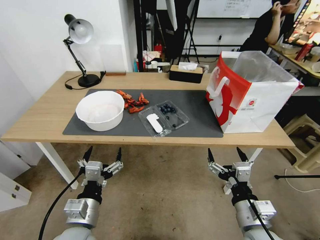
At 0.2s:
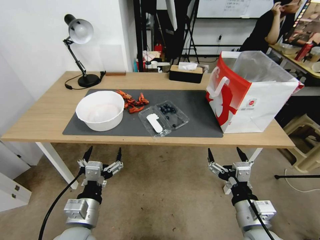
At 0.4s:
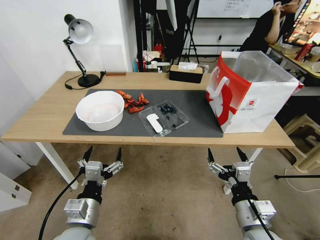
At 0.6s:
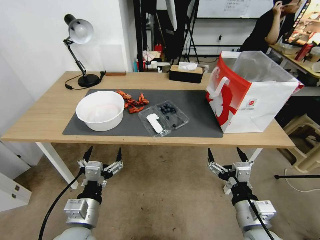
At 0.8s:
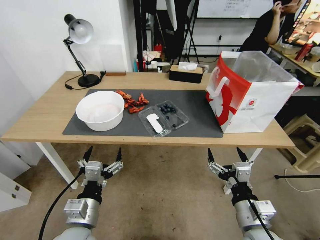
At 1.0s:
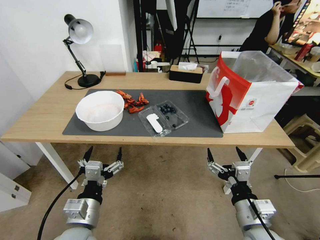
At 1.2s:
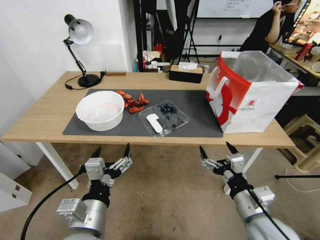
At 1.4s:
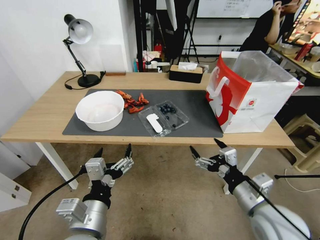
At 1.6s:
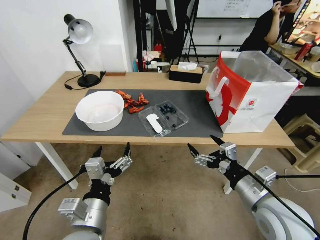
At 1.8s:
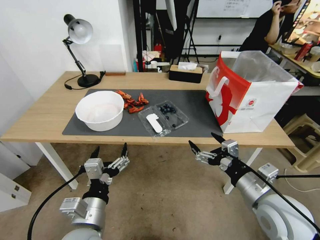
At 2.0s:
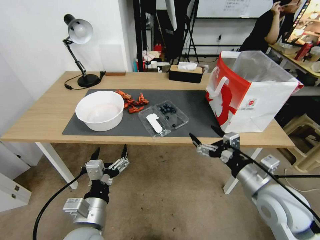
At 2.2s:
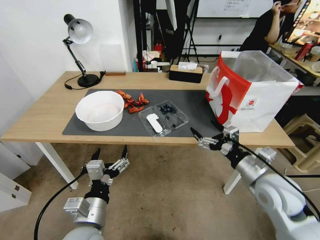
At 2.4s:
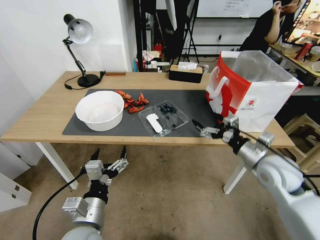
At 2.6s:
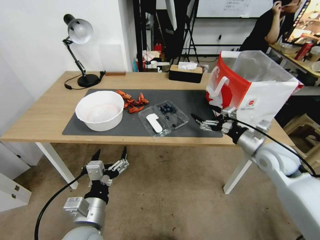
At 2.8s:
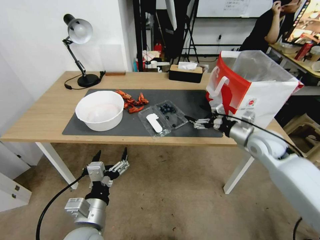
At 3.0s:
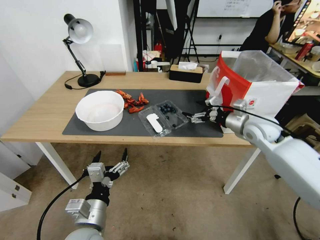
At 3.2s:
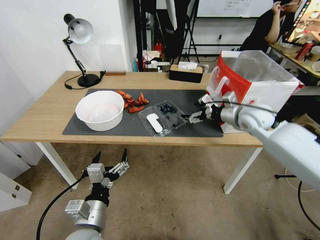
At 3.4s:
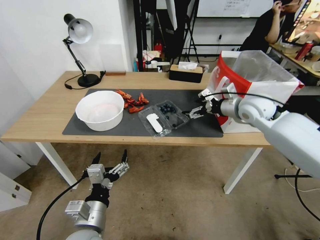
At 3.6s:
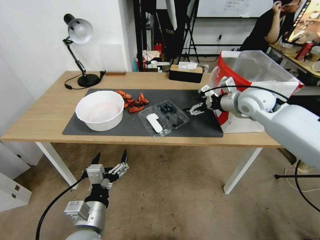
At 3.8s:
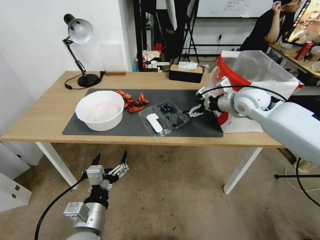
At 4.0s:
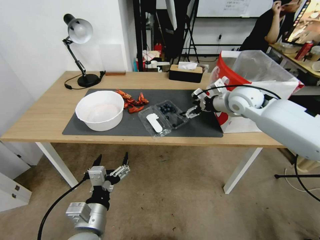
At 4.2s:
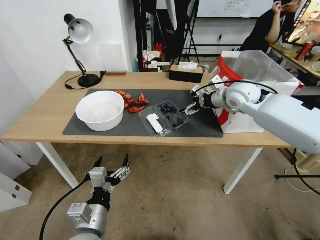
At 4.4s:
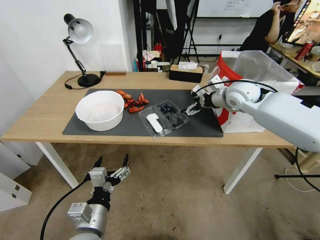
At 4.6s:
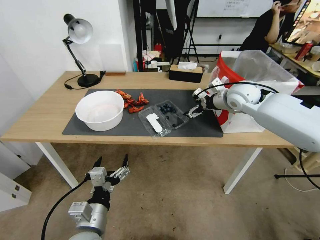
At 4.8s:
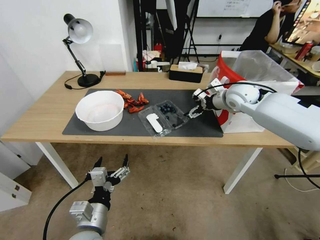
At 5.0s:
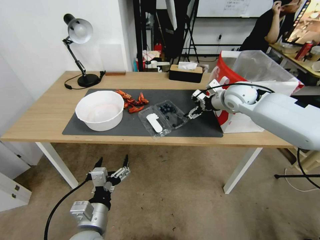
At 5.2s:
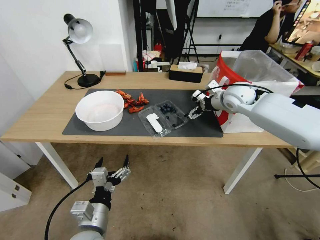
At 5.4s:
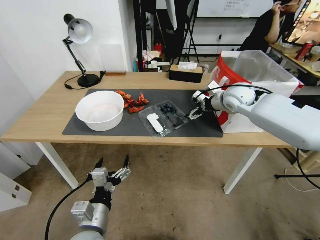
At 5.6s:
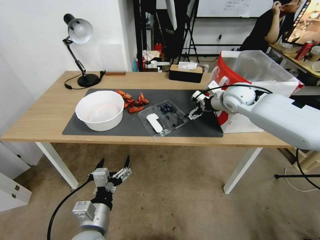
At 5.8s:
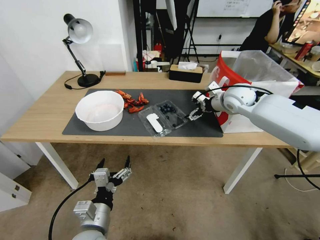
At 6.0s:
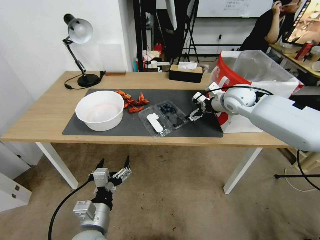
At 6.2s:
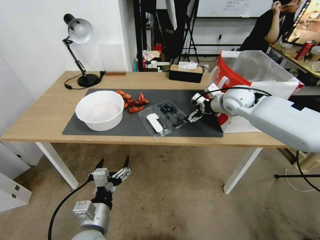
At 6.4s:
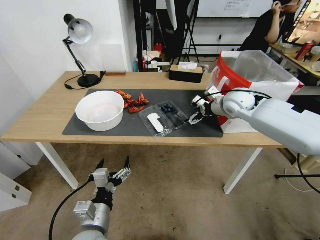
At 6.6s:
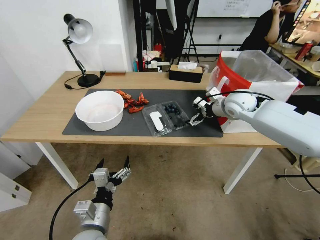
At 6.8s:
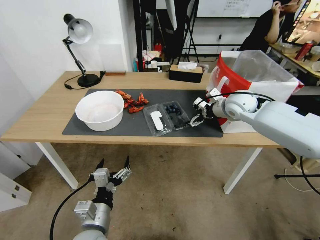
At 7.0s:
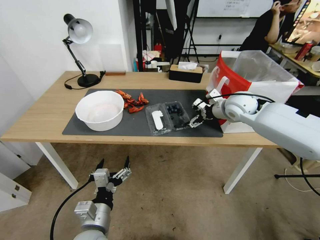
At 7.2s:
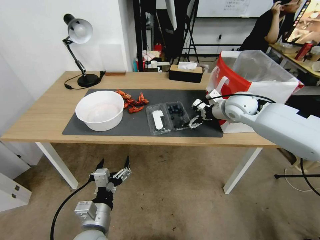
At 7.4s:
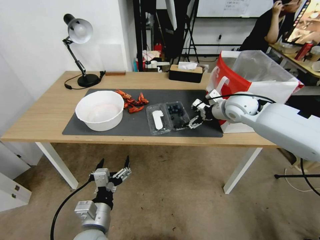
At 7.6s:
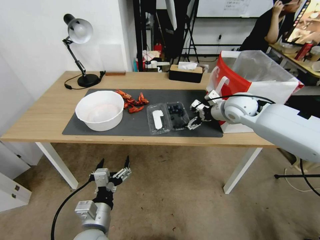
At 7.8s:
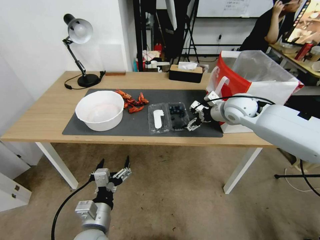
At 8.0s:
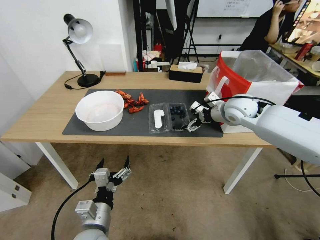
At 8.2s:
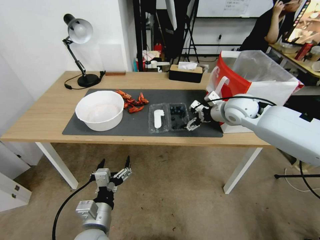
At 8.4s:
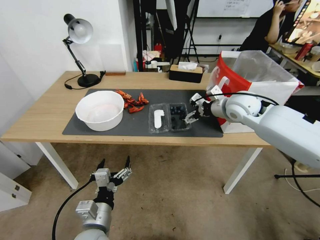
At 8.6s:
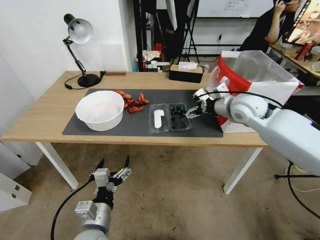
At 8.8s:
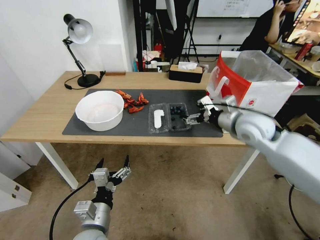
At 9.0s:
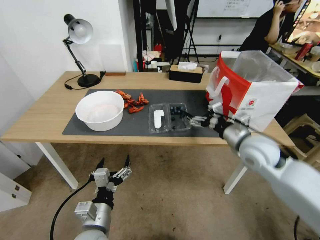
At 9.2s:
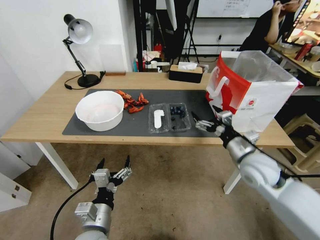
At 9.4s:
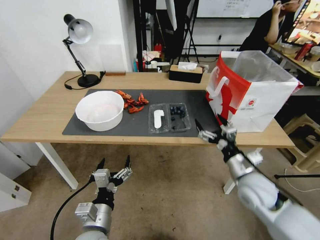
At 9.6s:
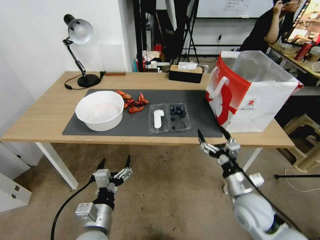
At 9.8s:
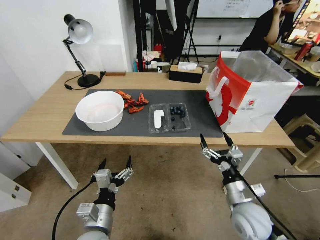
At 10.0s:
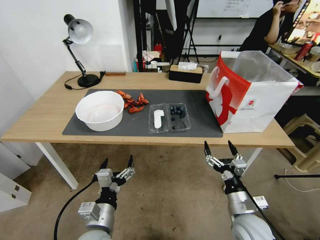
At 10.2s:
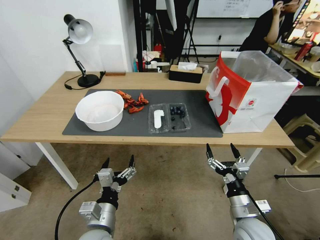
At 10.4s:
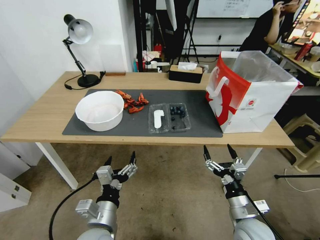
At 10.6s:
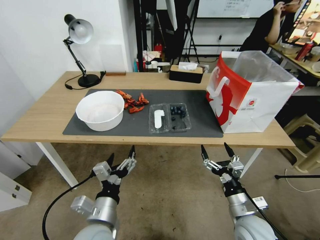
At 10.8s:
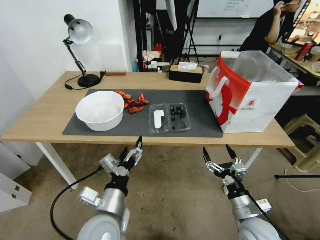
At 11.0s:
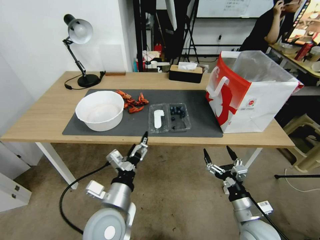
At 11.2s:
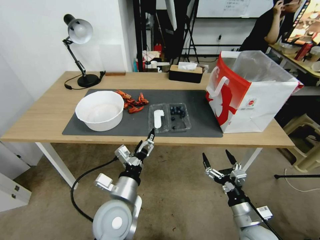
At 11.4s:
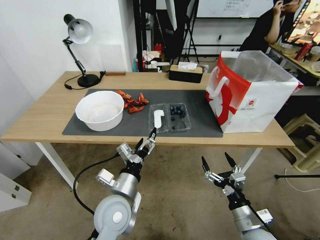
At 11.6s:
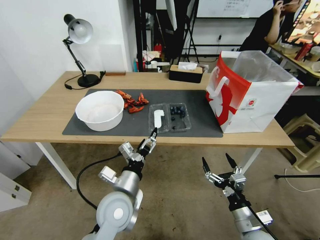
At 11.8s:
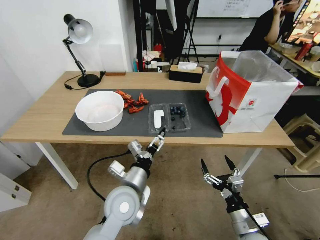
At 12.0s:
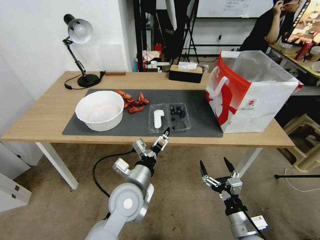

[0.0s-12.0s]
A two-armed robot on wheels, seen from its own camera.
Task of the whole recording: Close the takeout container lid, then place the container into the takeout bag.
1.6s to 3.0s: The left gripper travels downward by roughly 5 cm; the right gripper is displaced forward by approximately 25 cm.
3.0s to 4.4s: The right gripper heads forward, upward and to the left, covering approximately 15 cm.
4.4s to 7.6s: The grippers stay close to where they were, moving slightly.
7.6s to 9.0s: The right gripper is displaced backward by roughly 15 cm.
9.0s to 10.4s: The right gripper moves backward and downward, about 25 cm.
10.4s to 12.0s: The left gripper is displaced forward and to the right by roughly 15 cm.

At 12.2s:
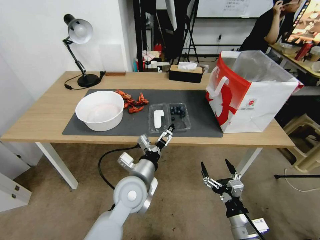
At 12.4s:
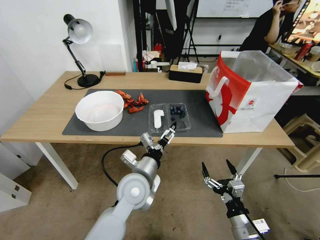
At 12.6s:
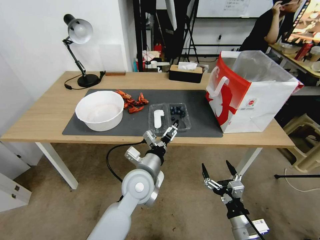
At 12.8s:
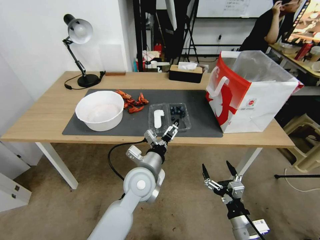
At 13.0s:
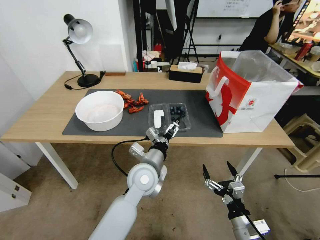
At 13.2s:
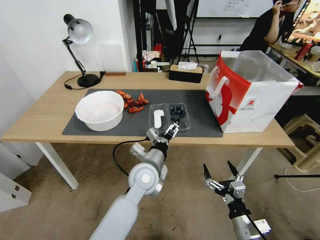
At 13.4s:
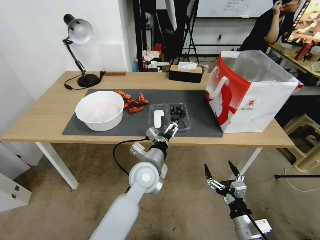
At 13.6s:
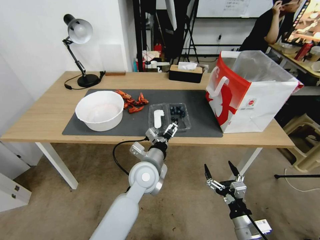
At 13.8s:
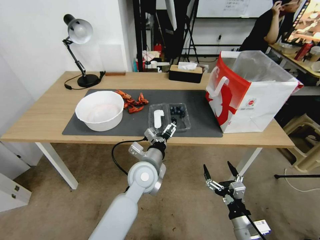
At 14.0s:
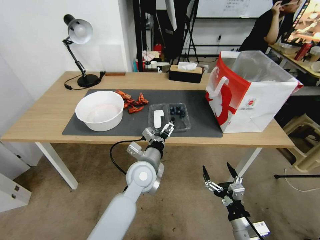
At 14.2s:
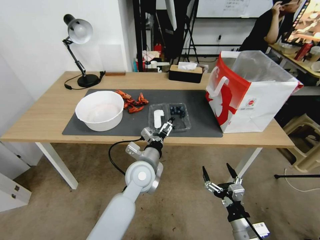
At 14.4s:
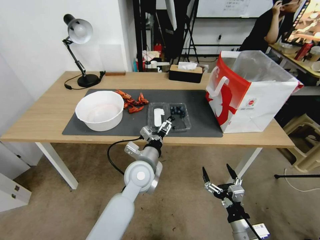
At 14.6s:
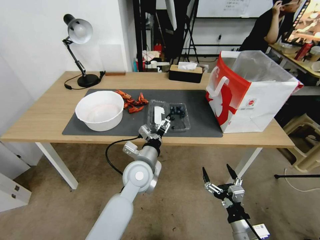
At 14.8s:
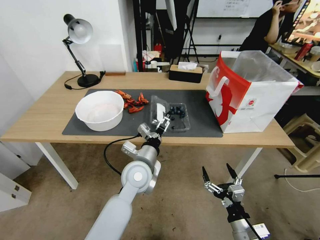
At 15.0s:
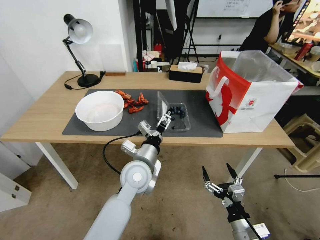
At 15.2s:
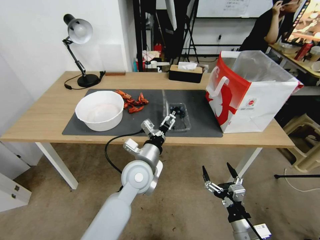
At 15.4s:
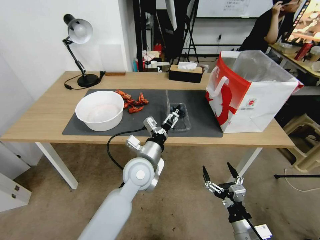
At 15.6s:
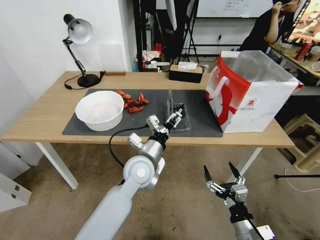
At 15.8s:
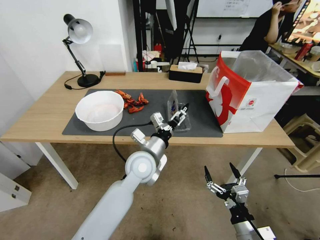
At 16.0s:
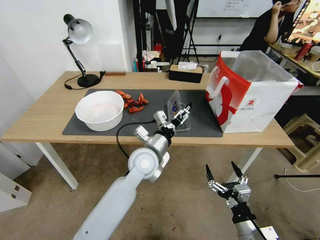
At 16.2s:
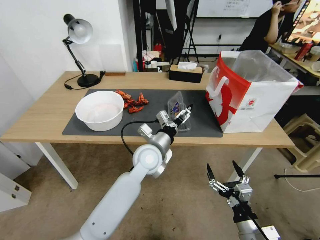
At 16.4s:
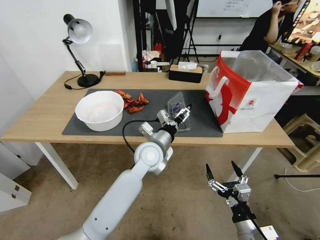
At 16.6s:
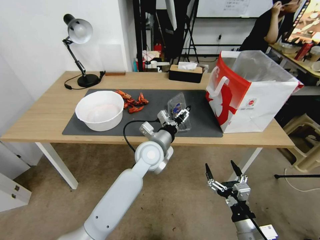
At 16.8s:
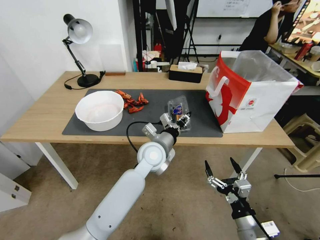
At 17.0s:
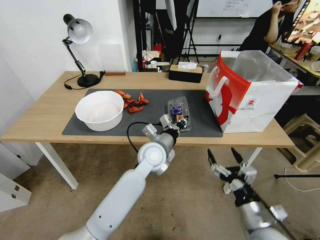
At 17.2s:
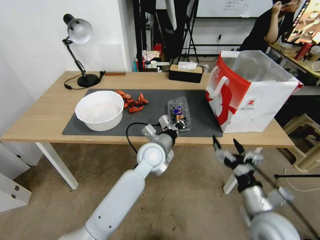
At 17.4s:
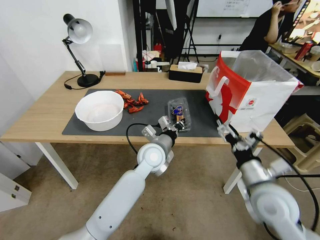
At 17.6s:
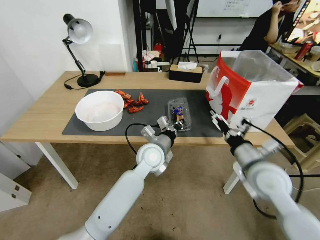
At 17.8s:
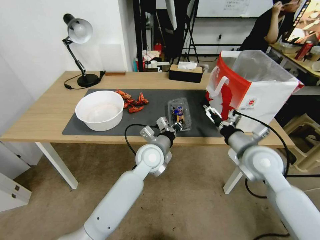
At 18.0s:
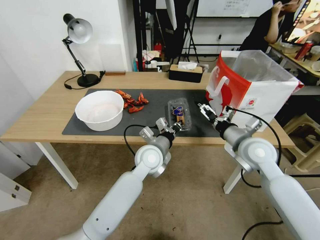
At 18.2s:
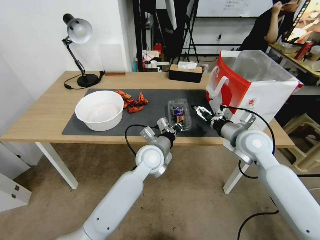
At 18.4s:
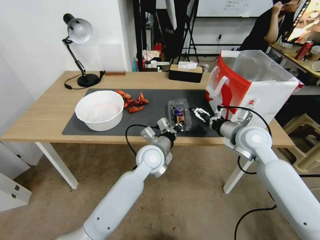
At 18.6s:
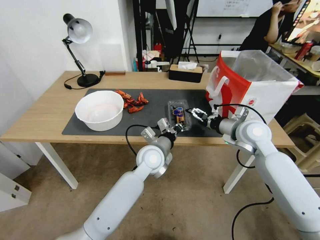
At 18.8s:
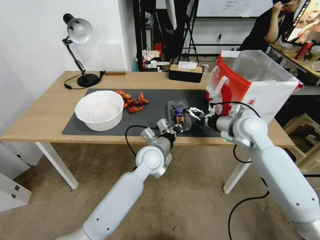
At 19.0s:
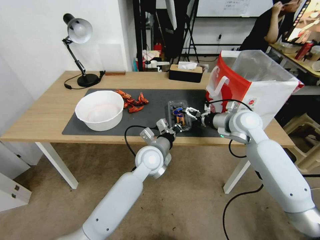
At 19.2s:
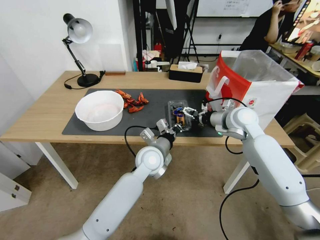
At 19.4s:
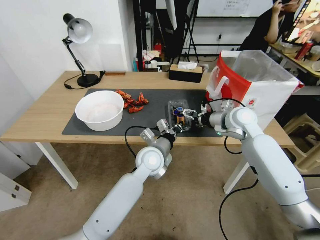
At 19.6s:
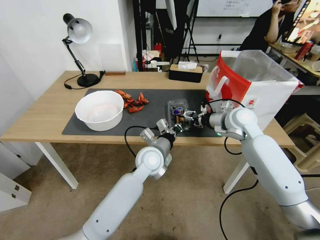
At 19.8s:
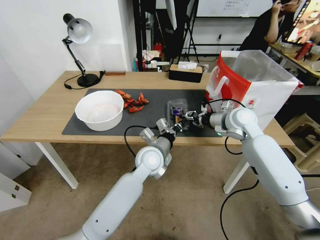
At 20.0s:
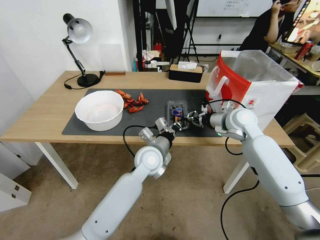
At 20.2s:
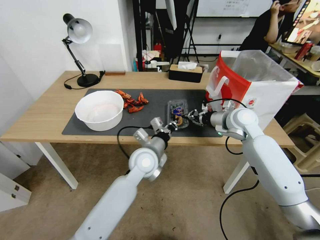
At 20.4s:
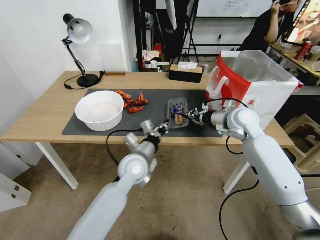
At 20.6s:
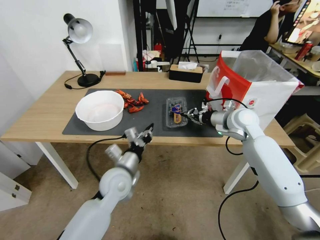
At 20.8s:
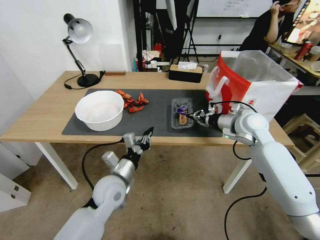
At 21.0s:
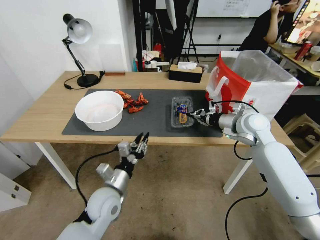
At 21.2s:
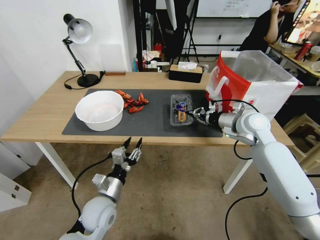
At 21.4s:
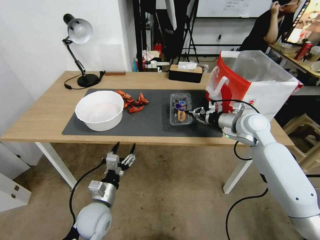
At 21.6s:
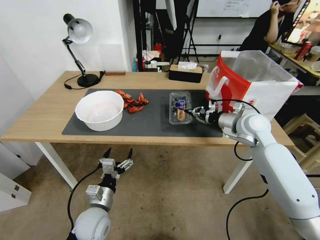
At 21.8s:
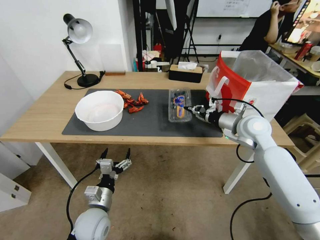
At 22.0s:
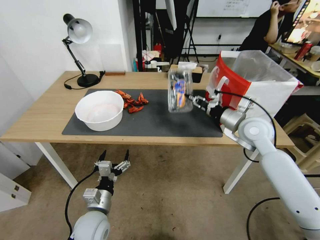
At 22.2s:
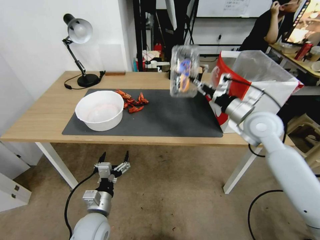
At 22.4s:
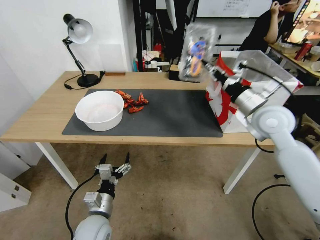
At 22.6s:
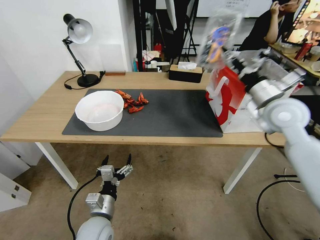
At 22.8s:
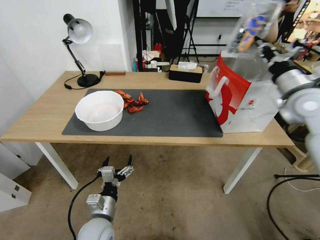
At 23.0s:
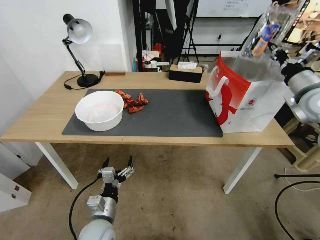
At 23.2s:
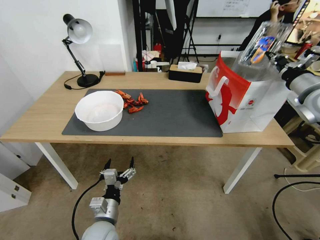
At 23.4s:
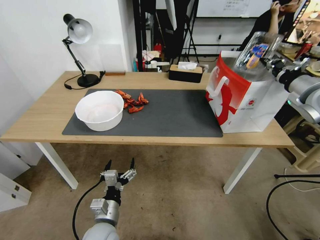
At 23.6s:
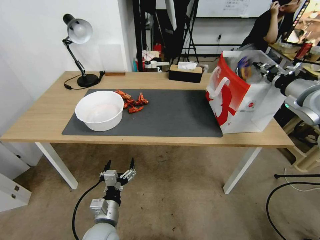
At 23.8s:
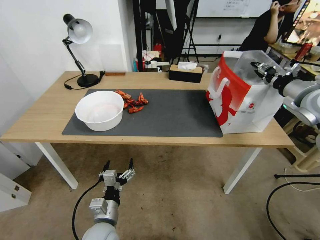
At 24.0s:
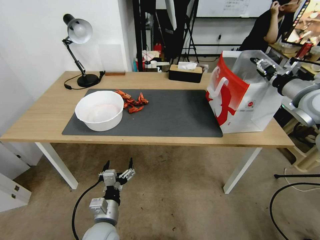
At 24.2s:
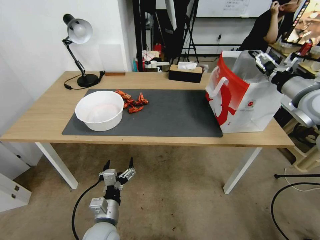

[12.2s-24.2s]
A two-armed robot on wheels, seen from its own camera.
Task of the whole recording: Close the takeout container lid, then place the container into the takeout bag.
12.2s to 13.8s: The left gripper moves forward, roughly 5 cm.
13.8s to 15.2s: The grippers make only small movements.
15.2s to 16.6s: The left gripper shifts about 5 cm forward, and closes up.
16.6s to 18.2s: The left gripper closes. Meanwhile the right gripper heads forward and upward, covering some 30 cm.
18.2s to 19.8s: The right gripper is displaced forward by approximately 10 cm, and closes up.
19.8s to 21.2s: The left gripper is displaced to the left, backward and downward by about 20 cm, and opens.
21.2s to 22.6s: The right gripper shifts roughly 10 cm upward. The left gripper heads backward, covering some 5 cm, and opens.
22.6s to 24.2s: The right gripper heads to the right, covering about 10 cm, and opens up.
